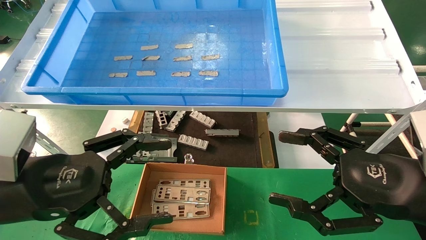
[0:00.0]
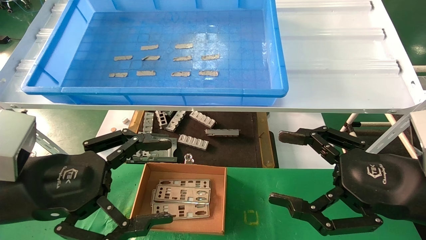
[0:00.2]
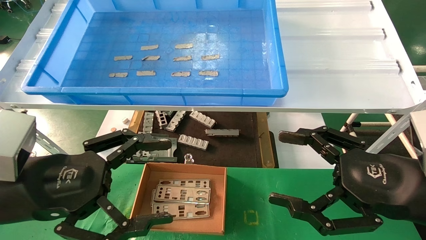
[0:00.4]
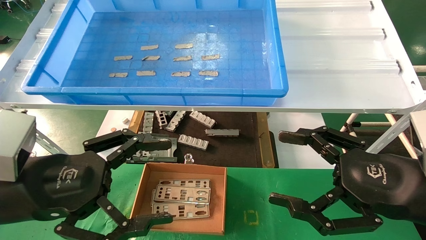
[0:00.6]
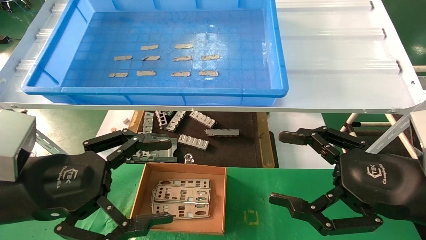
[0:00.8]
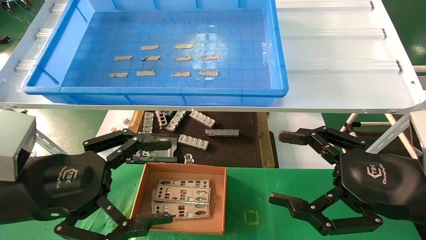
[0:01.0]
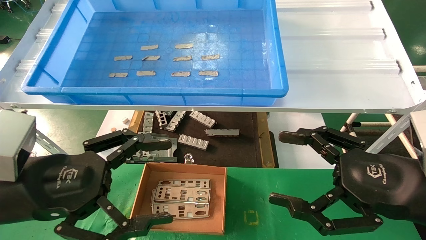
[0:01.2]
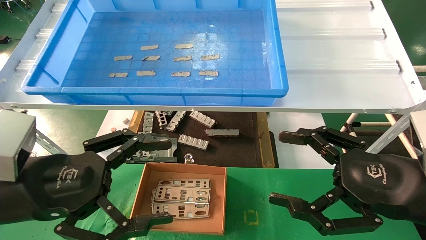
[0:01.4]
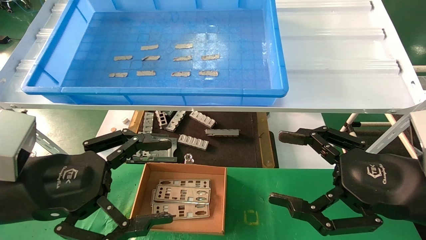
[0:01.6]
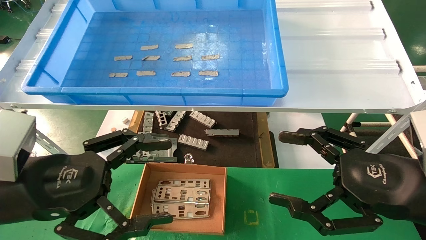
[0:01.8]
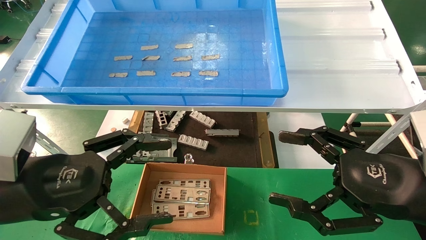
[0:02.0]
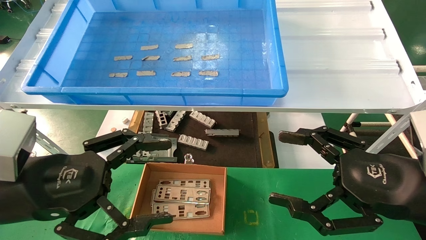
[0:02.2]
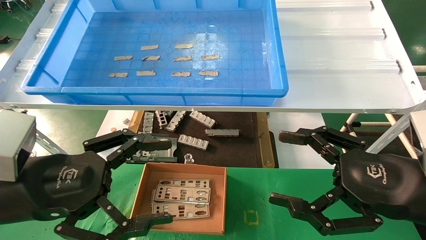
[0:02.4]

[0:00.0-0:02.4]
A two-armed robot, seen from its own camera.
Task of the whole recording: pick up the parts on the tray and put them in the cardboard box.
0:00.0 to 0:02.4: The two grippers keep their place.
